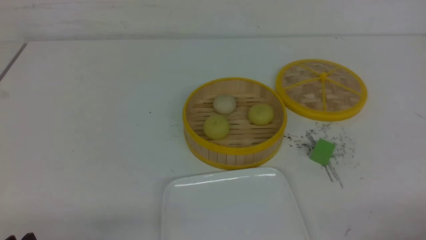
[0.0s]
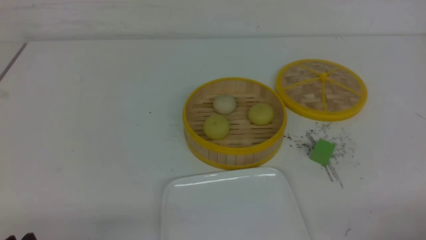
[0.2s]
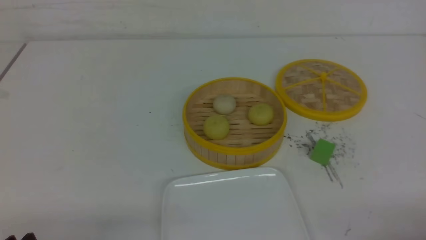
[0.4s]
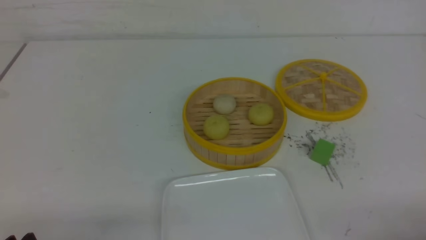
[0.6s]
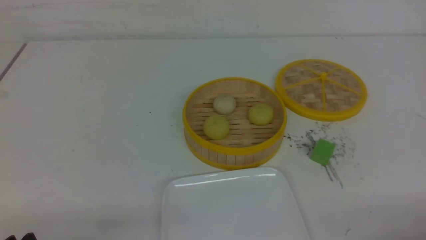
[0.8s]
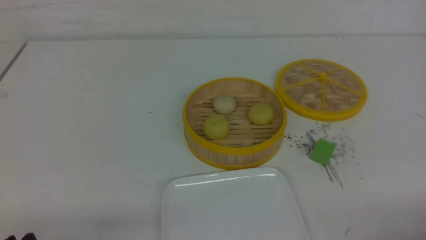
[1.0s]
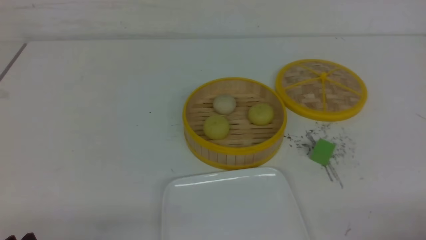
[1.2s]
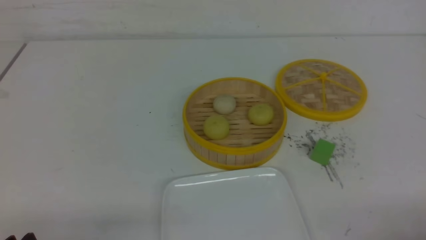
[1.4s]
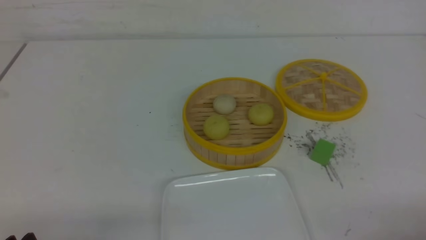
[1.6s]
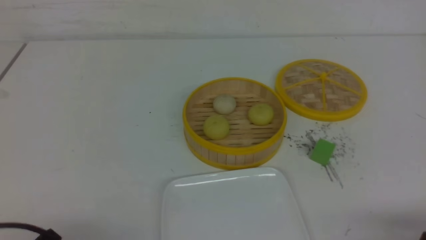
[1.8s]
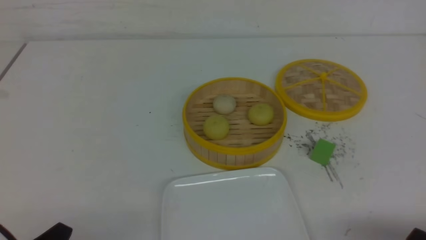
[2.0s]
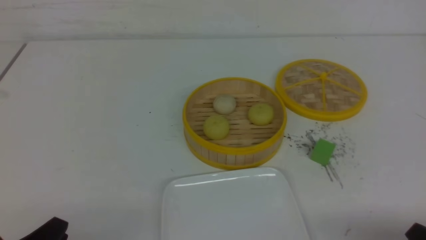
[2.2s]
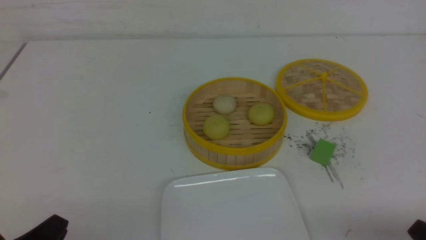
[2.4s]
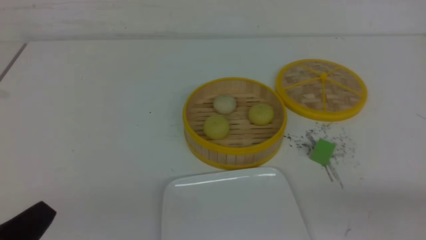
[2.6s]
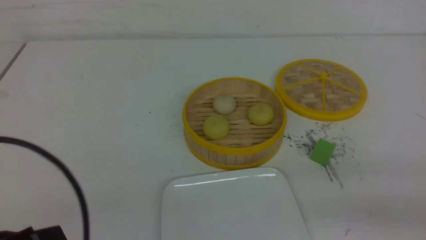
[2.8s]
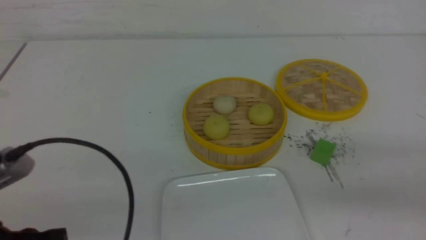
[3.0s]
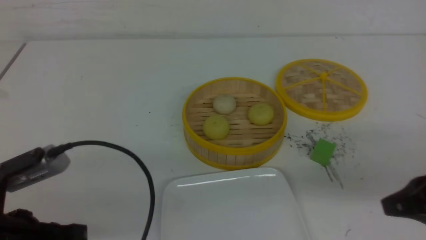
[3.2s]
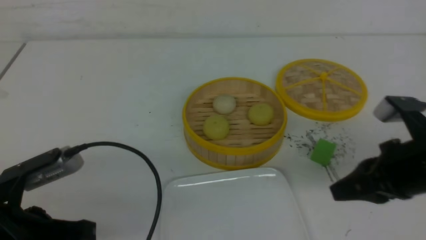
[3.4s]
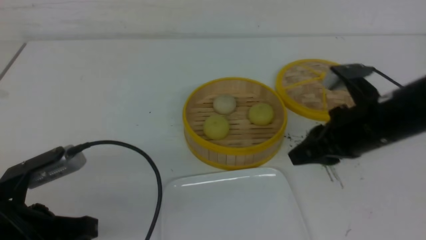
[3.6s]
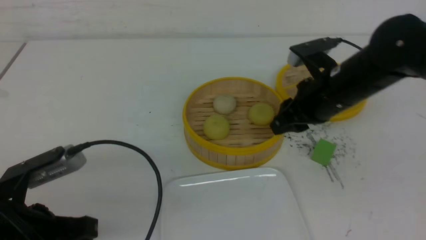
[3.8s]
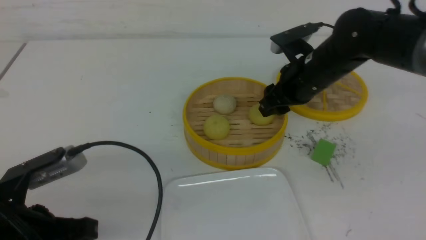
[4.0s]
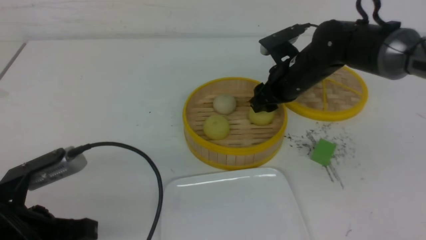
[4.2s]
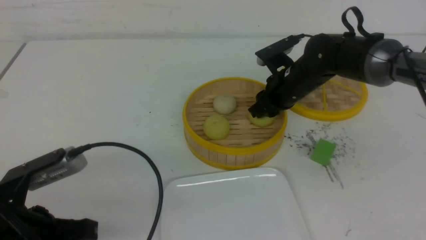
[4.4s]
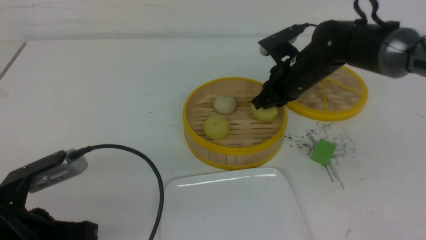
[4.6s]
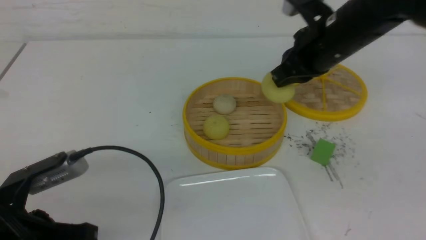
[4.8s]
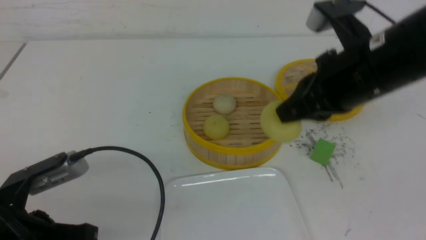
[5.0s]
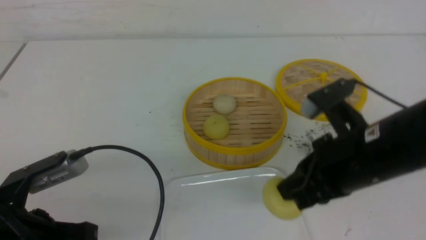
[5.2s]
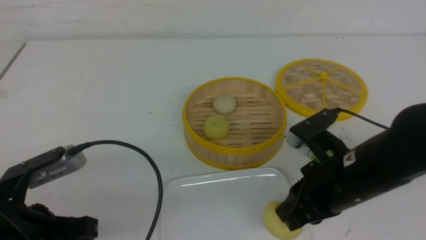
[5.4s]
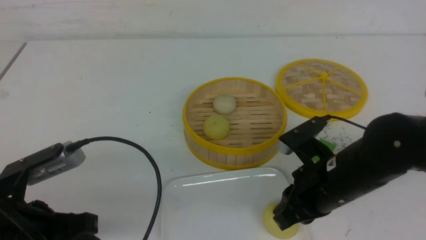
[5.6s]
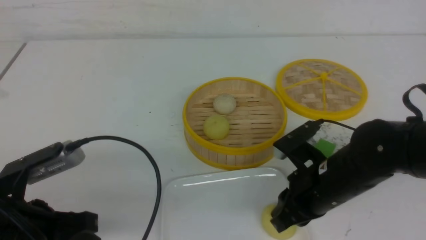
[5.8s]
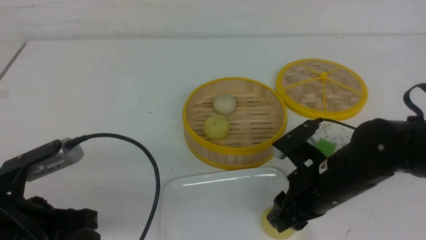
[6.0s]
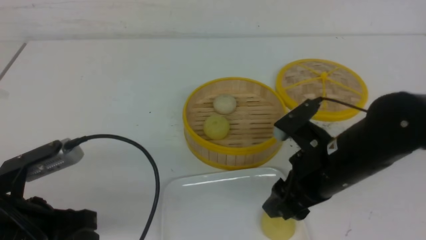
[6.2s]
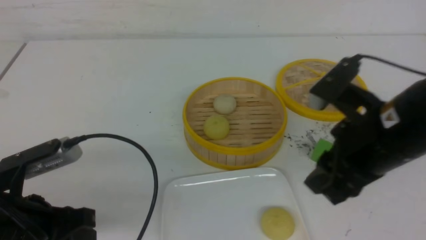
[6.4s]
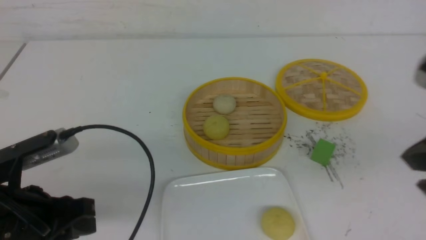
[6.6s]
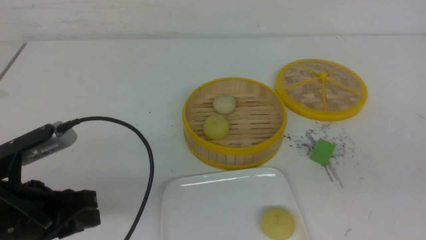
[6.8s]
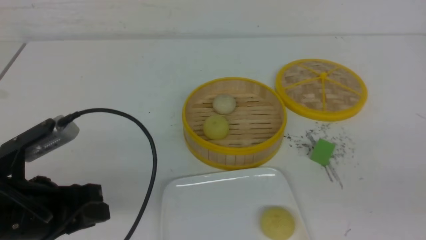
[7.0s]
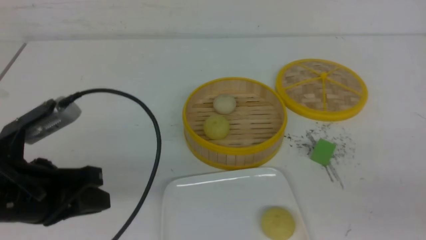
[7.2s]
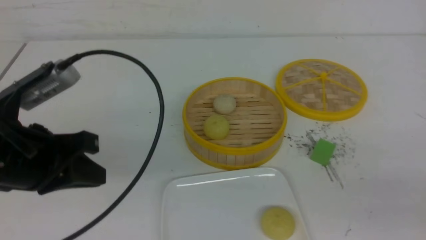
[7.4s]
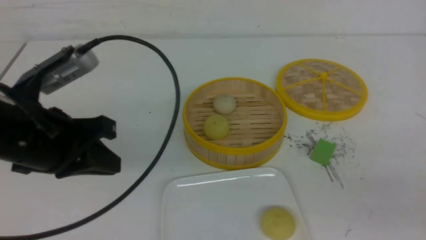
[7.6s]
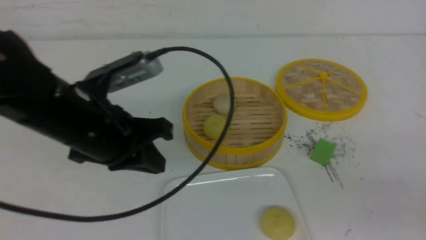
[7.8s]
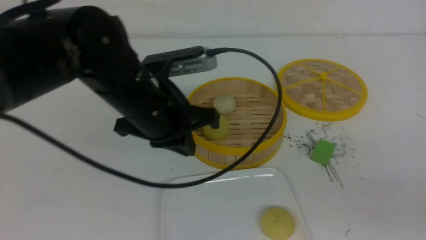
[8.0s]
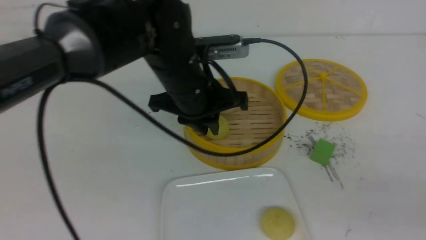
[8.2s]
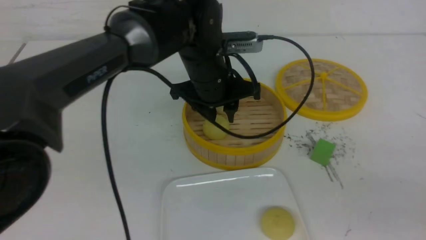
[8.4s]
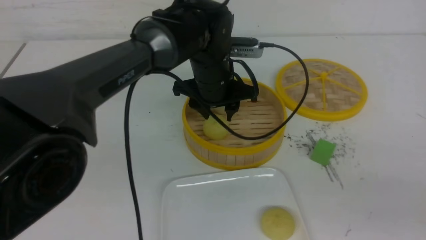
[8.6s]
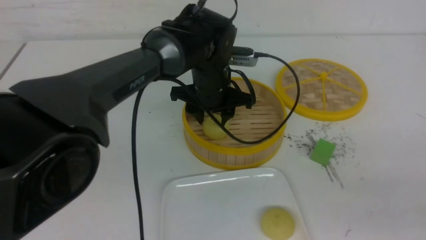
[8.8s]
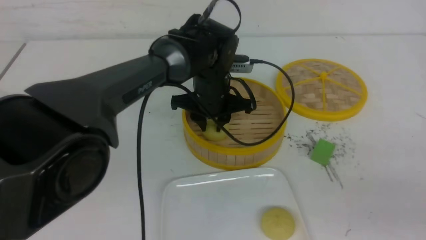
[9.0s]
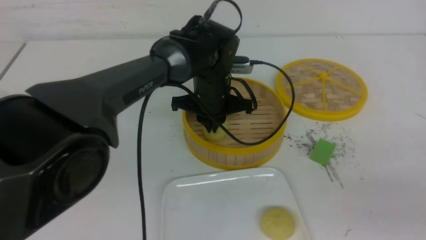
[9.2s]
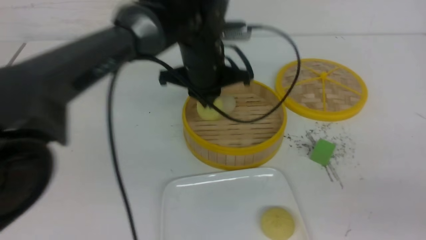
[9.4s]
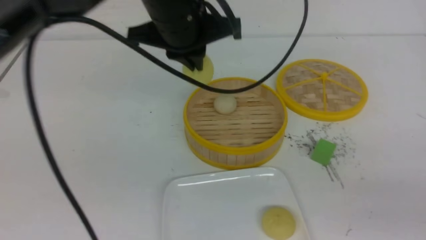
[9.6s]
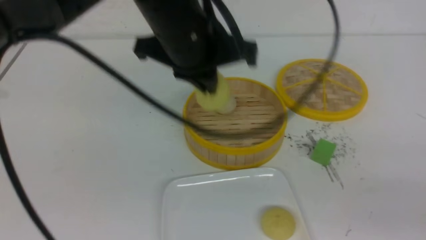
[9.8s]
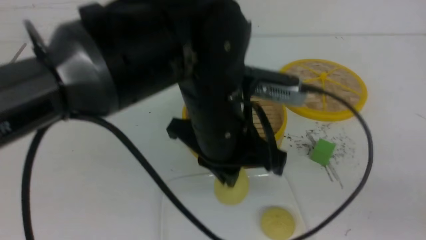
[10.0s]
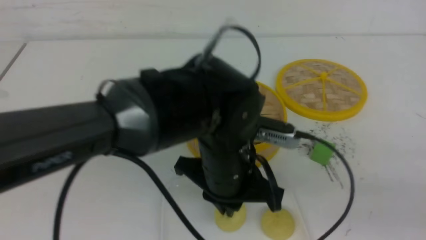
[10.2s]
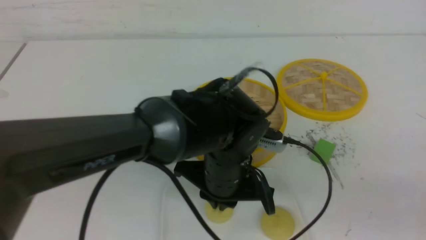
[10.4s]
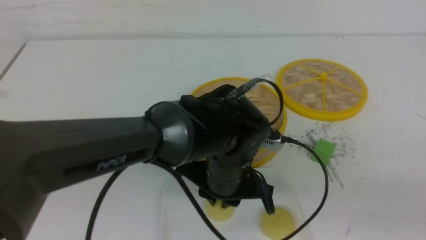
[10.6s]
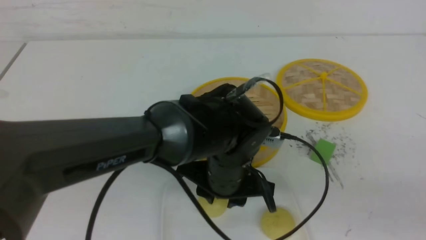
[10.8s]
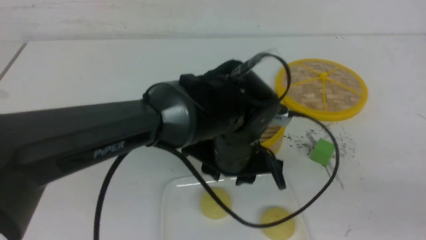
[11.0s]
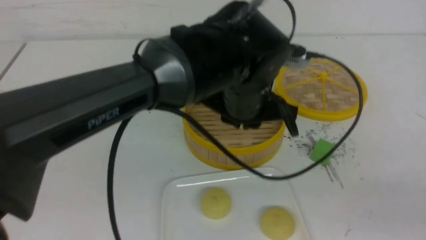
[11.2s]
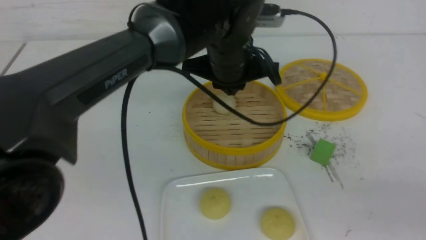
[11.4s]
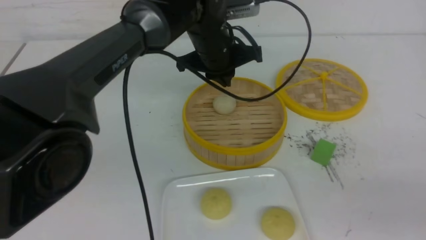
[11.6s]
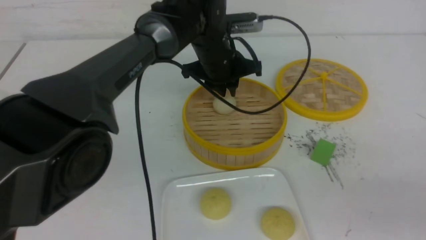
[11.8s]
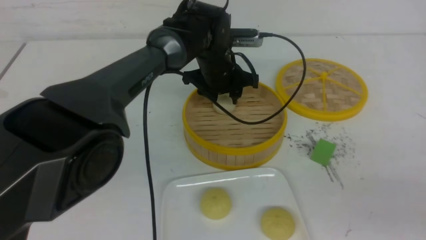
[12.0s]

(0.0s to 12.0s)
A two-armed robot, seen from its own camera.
Step, 0.0s - 4.4s: use the right arm to grab the steamed stuffed bun that is closest to it.
Step, 4.6s - 6.0s: use the right arm to put the steamed stuffed bun into the plate.
Step, 6.2s - 9.2s: use the left arm to grab the steamed stuffed bun that is closest to it.
Step, 9.4s - 10.6s: use the left arm to put the steamed stuffed bun into the plate.
1.6s - 3.0s: The left gripper shifts about 10 cm upward, and closes its fingers; the right gripper is displaced upward and forward by roughly 15 cm, and closes up.
3.0s - 4.4s: The left gripper ends up some 5 cm from where it was, and opens. The right gripper heads forward and to the left, covering some 35 cm, and opens.
4.4s - 6.0s: The right gripper travels backward by approximately 20 cm, and closes, then reopens.
6.0s - 7.6s: The left gripper shifts approximately 10 cm upward and forward, and closes, while the right gripper heads backward, to the right and upward, covering about 25 cm, and closes up.
7.6s - 9.0s: The left gripper shifts roughly 25 cm to the right, forward and downward, and opens up.
9.0s - 10.4s: The left gripper travels backward by some 15 cm.
10.4s - 12.0s: The left gripper heads forward, covering approximately 20 cm, and opens its fingers.

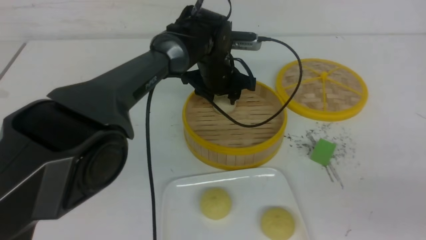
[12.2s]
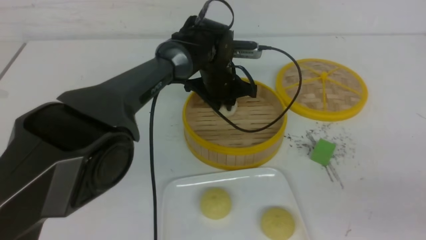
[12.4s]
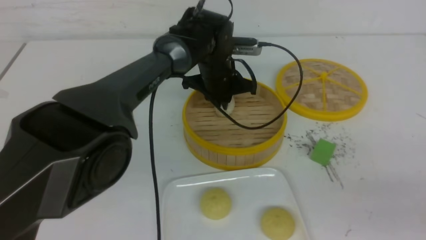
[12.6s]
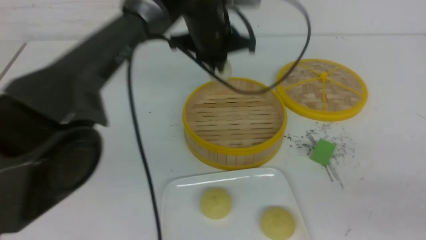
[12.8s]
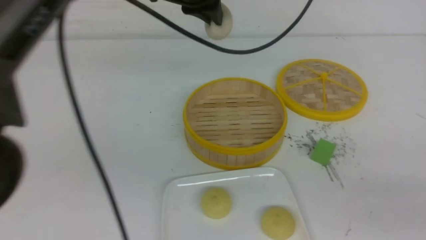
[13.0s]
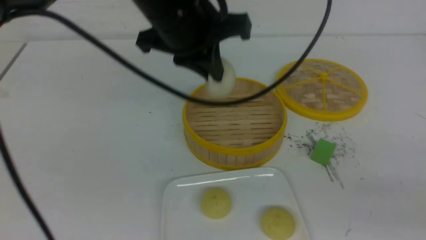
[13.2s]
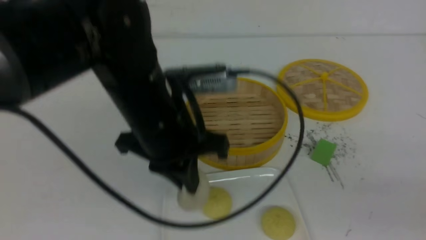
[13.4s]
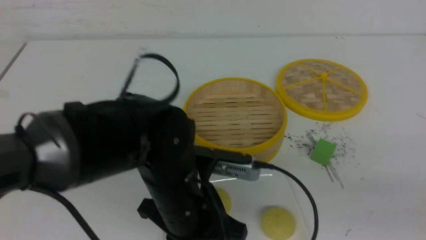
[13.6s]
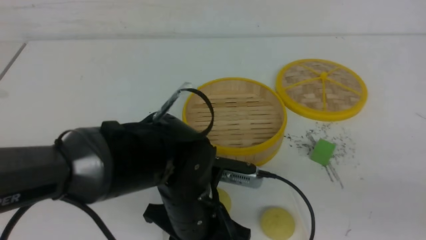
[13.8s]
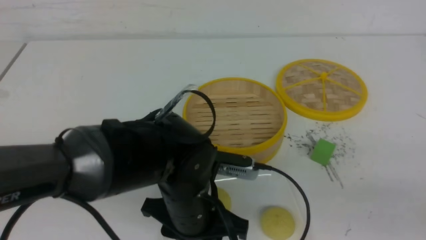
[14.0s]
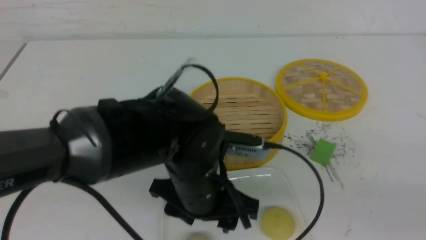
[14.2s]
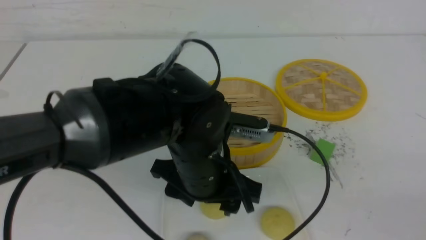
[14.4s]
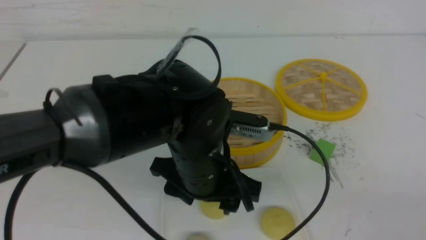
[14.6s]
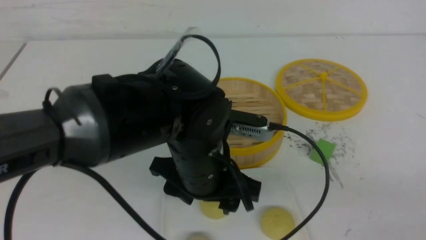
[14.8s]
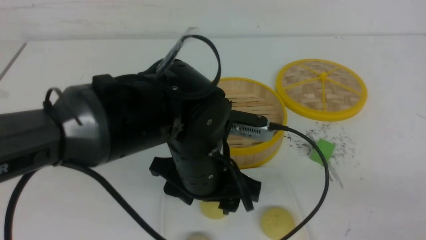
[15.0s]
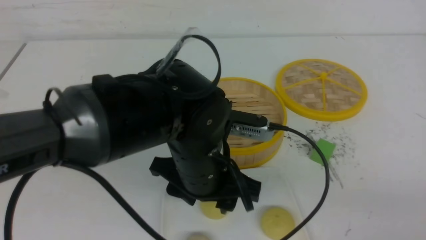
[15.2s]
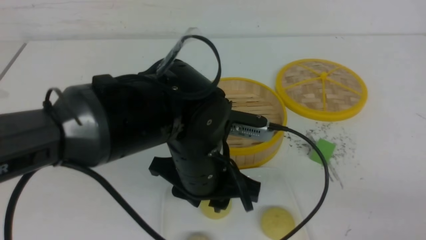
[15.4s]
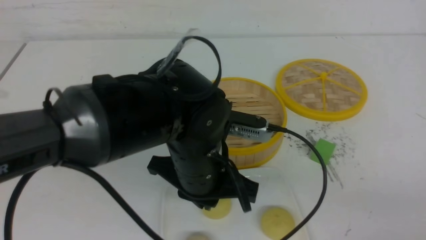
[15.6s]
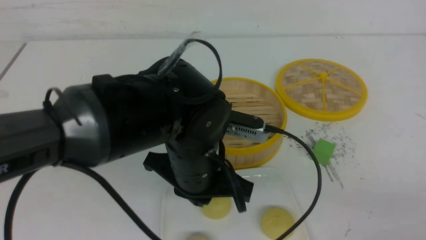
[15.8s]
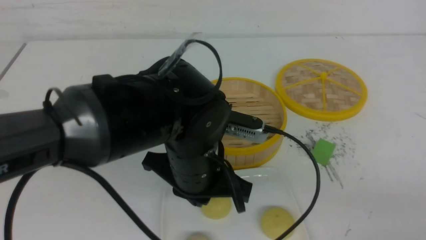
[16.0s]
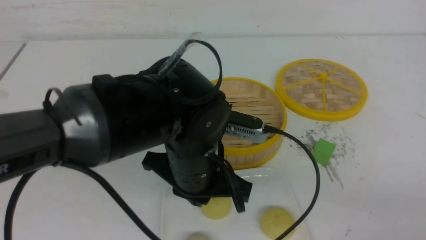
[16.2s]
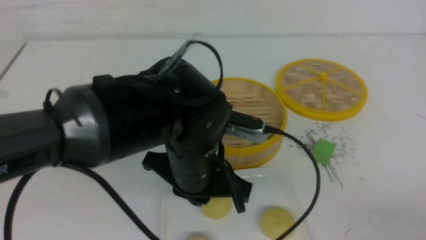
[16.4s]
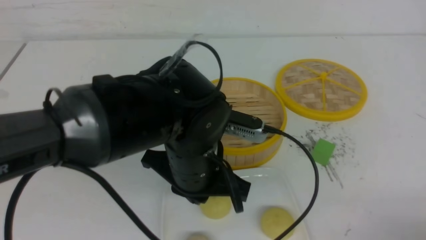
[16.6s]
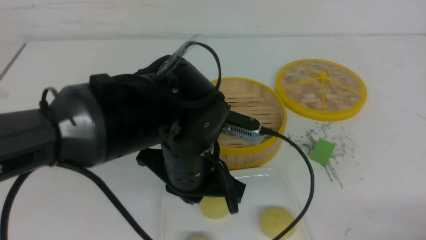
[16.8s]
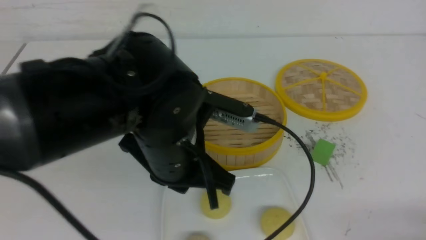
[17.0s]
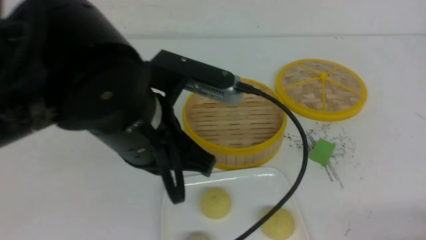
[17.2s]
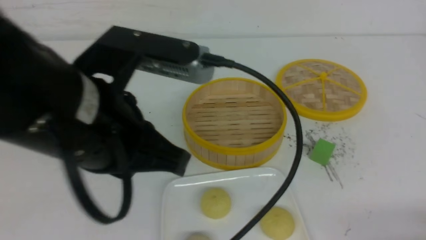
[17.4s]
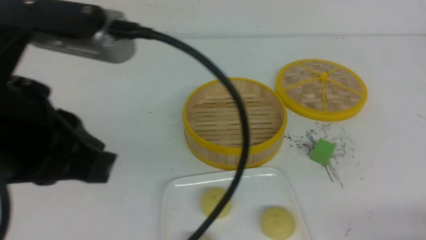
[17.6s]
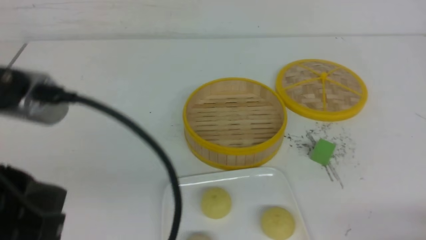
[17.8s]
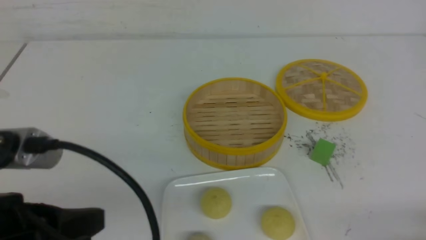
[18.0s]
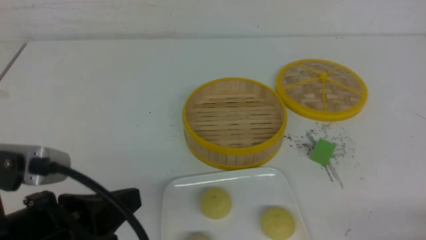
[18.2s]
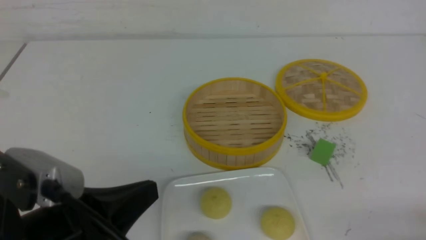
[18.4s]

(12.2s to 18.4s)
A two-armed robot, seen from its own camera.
Step, 12.6s - 14.0s: use the left arm to put the steamed stuffed bun into the plate.
12.2s - 13.8s: The left gripper moves backward, approximately 25 cm.
13.8s - 15.4s: The right gripper shifts by approximately 5 cm, and closes its fingers. The left gripper changes place by roughly 5 cm, and opens, then closes again.
15.4s - 16.8s: The right gripper is displaced downward by some 10 cm. Meanwhile the left gripper closes.
16.8s - 18.4s: The left gripper heads to the left and backward, covering about 20 cm.
